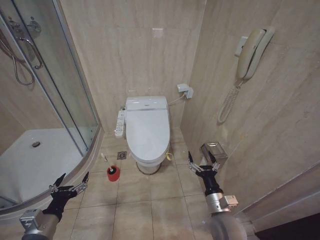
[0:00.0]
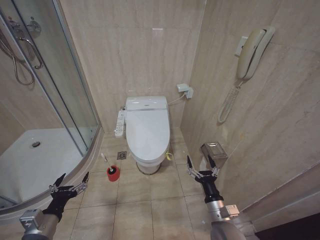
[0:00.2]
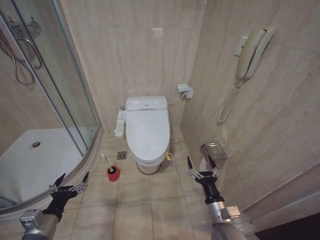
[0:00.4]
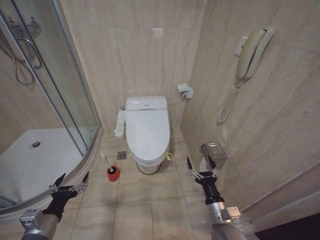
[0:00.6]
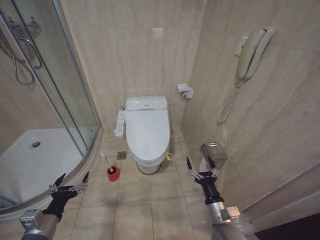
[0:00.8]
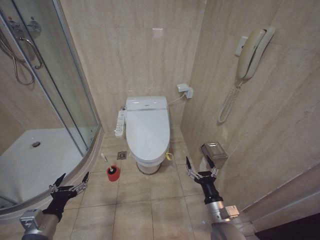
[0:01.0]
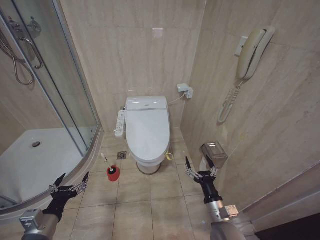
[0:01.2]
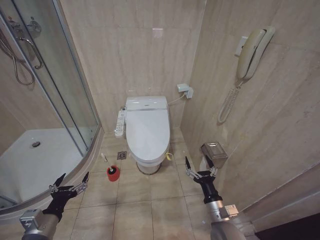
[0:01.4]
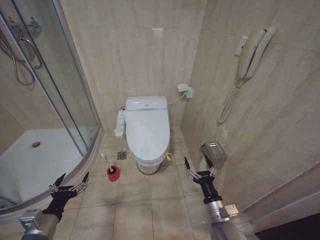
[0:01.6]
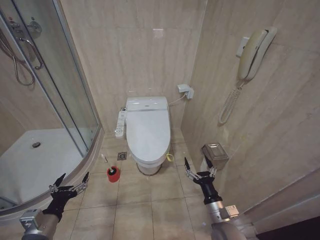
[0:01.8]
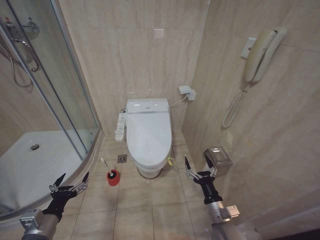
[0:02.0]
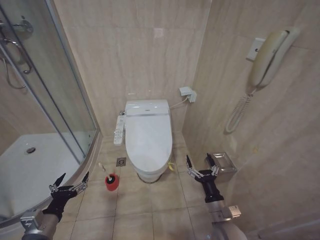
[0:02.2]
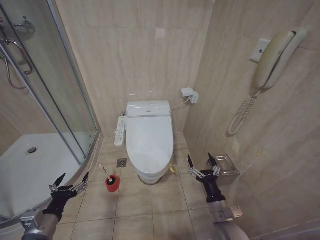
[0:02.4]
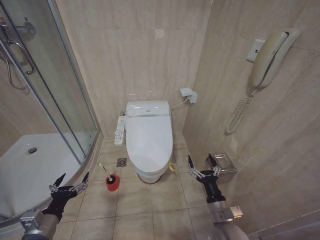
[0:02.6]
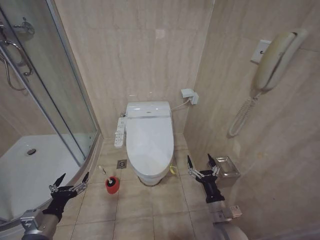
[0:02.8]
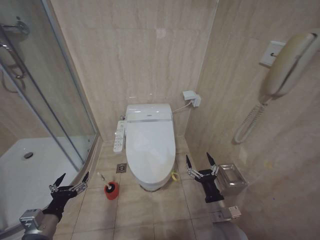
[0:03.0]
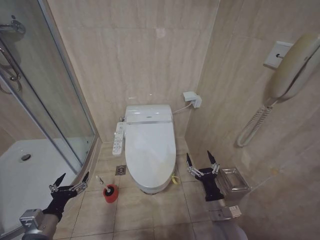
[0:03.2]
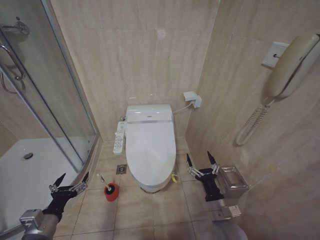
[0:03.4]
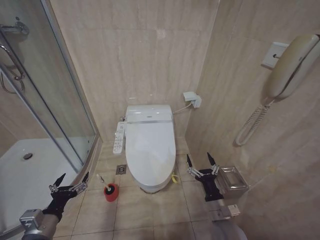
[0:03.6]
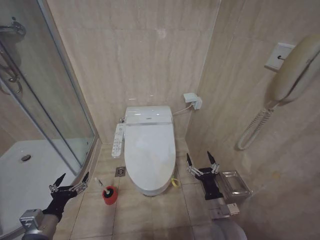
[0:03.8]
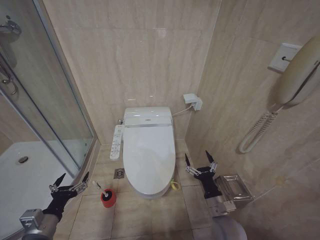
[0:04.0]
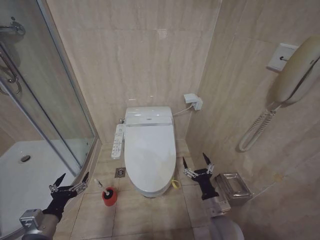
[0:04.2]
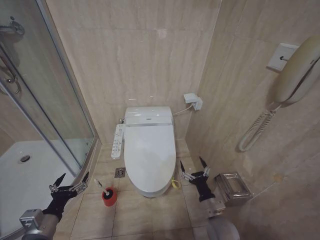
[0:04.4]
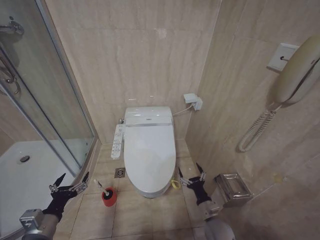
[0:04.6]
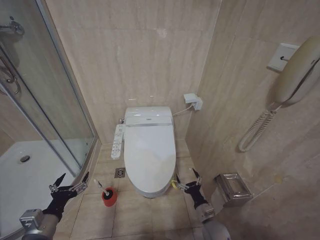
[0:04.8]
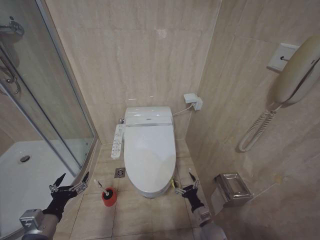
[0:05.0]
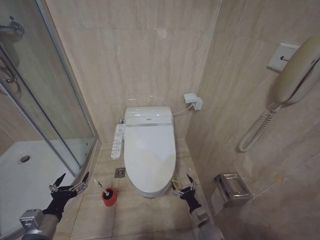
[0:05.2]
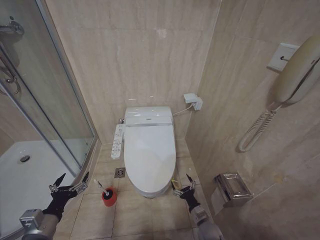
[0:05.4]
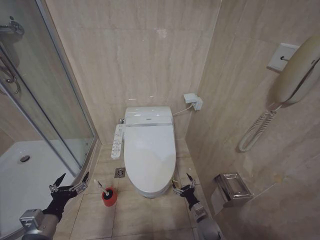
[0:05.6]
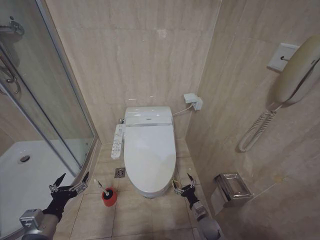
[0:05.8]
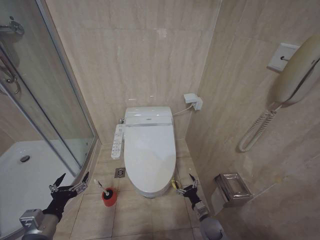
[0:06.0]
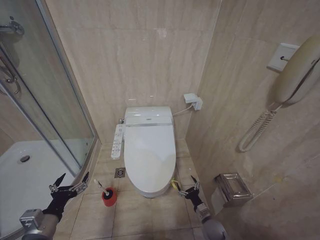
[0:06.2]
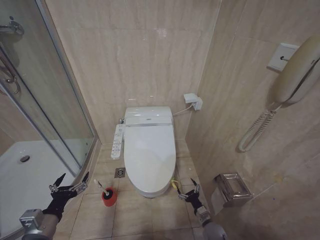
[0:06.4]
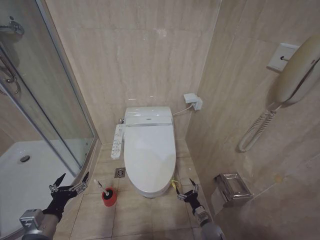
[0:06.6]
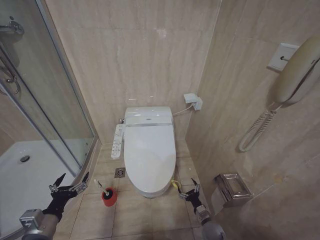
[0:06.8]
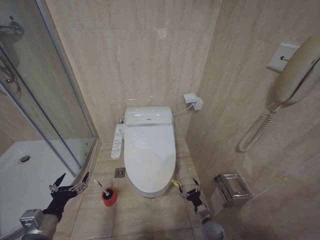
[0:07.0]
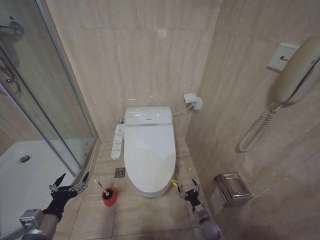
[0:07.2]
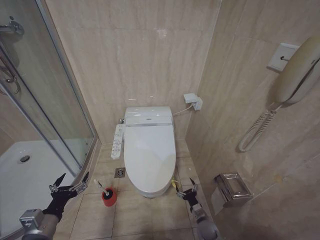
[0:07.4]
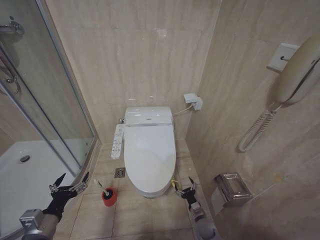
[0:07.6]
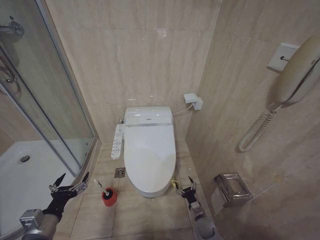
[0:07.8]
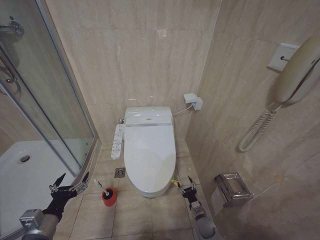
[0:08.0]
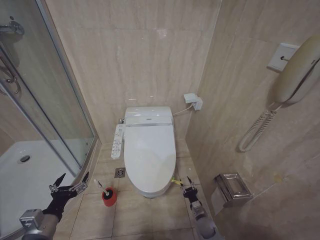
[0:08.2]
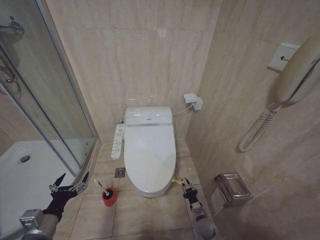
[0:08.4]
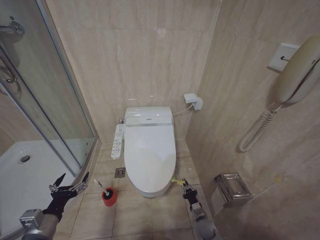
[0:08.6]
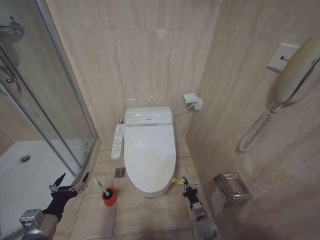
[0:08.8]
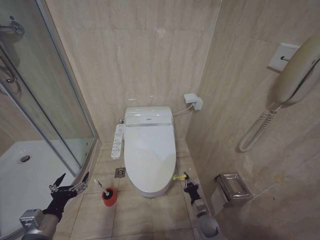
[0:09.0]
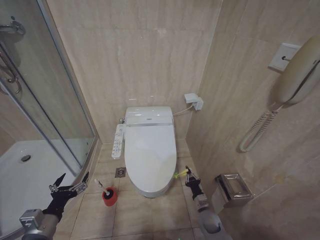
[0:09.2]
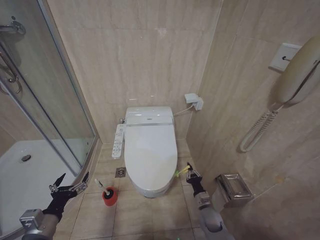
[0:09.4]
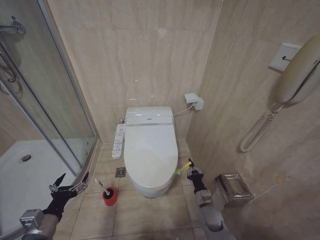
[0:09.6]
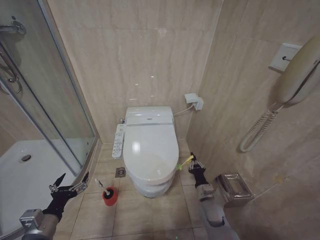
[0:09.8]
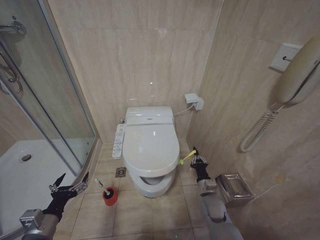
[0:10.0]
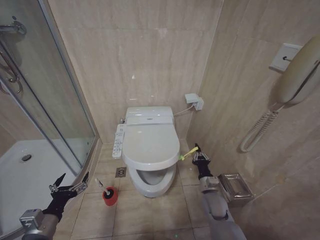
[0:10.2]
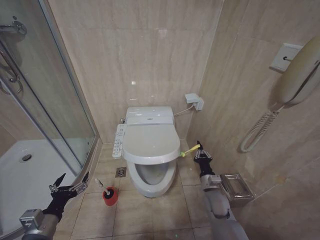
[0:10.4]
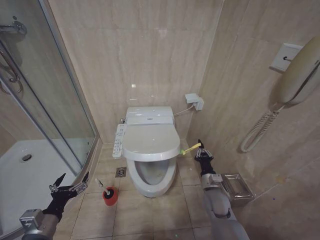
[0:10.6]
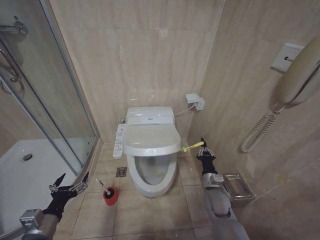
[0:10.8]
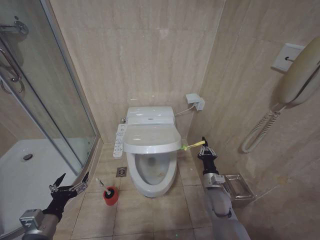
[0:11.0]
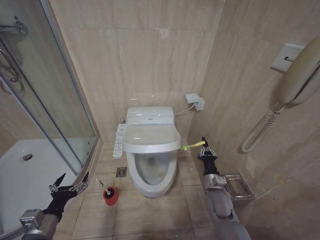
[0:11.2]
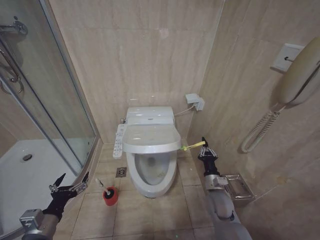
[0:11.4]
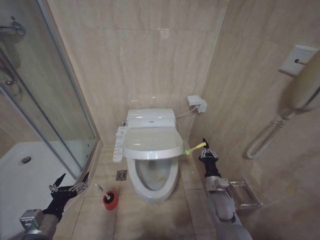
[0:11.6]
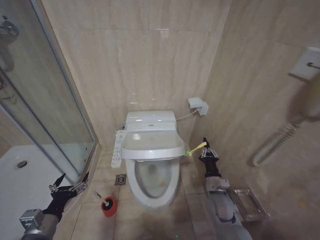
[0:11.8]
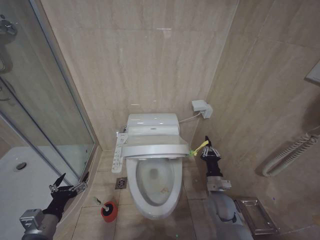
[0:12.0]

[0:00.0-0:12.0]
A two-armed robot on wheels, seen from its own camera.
Task of the whole recording: Open the toilet lid, clean the toilet bowl with a toilet brush, close the toilet lid, and flush.
0:01.6 to 0:03.0: Both grippers stay put.
0:03.0 to 0:04.4: The grippers stay close to where they were, moving slightly.
0:04.4 to 0:06.0: The right gripper is displaced downward by about 15 cm.
0:07.6 to 0:09.0: The right gripper closes up.
0:09.0 to 0:10.4: The right gripper shifts about 20 cm upward.
0:10.4 to 0:12.0: The grippers make only small movements.

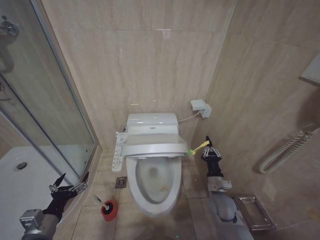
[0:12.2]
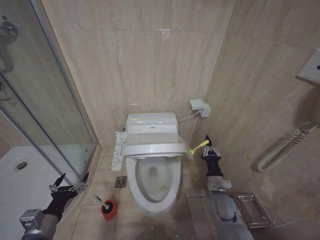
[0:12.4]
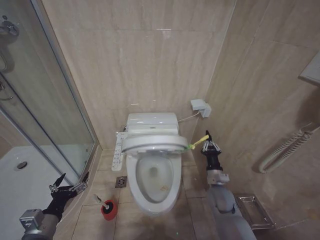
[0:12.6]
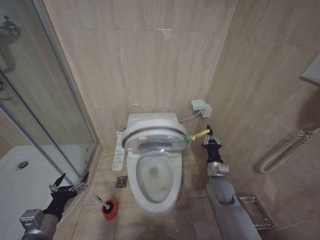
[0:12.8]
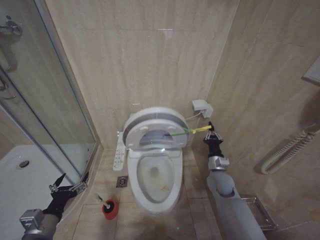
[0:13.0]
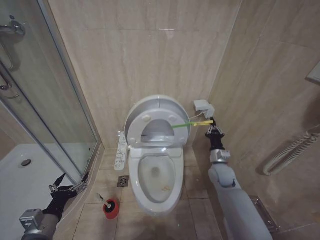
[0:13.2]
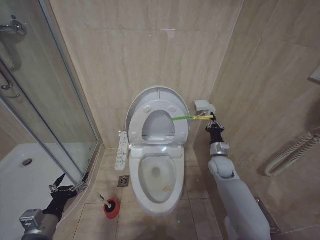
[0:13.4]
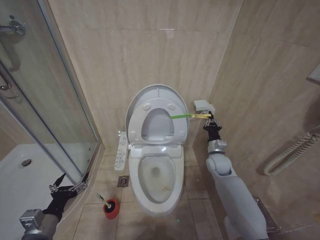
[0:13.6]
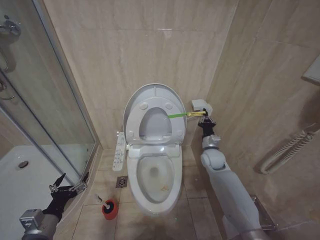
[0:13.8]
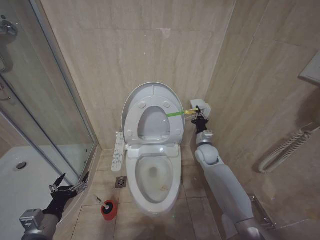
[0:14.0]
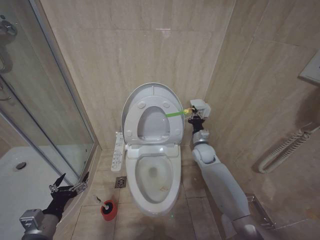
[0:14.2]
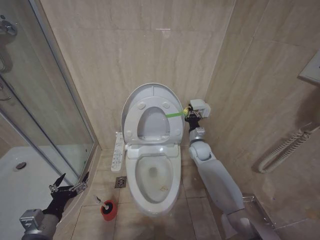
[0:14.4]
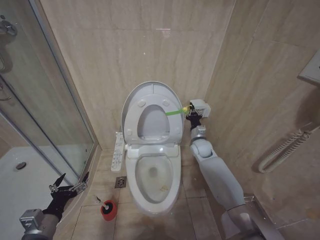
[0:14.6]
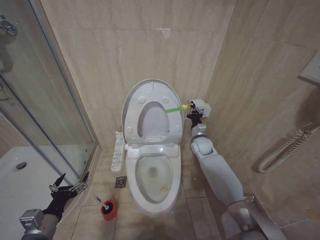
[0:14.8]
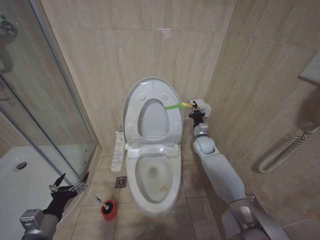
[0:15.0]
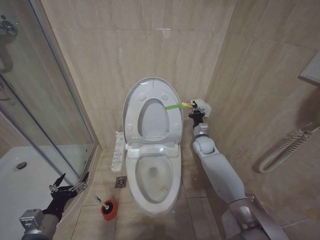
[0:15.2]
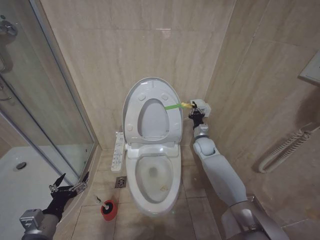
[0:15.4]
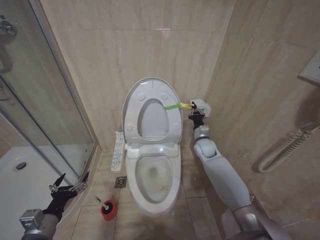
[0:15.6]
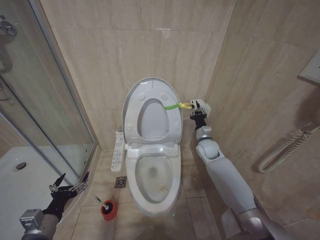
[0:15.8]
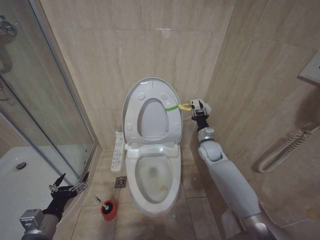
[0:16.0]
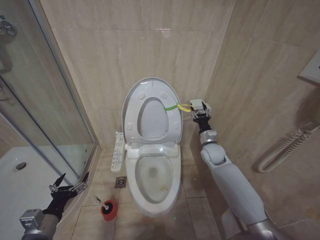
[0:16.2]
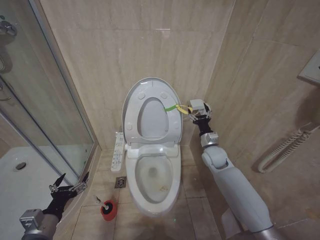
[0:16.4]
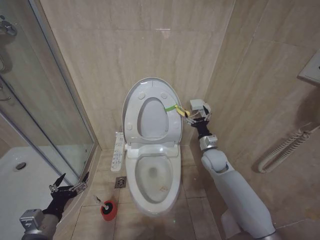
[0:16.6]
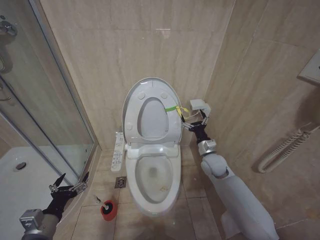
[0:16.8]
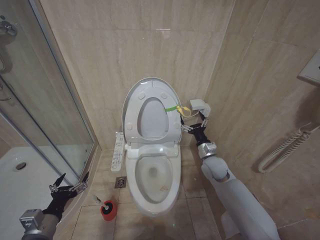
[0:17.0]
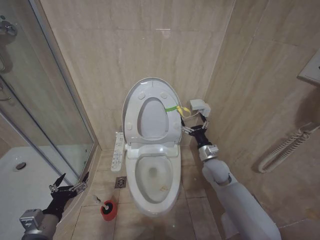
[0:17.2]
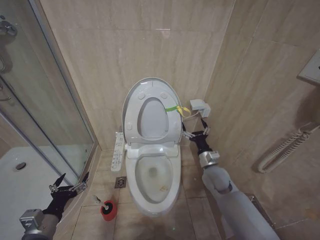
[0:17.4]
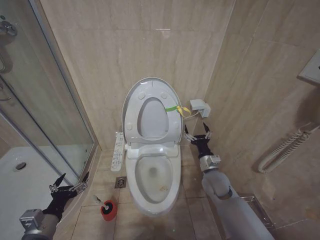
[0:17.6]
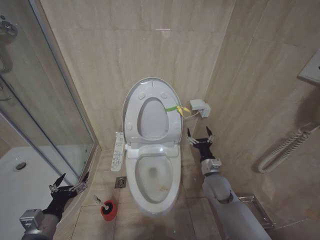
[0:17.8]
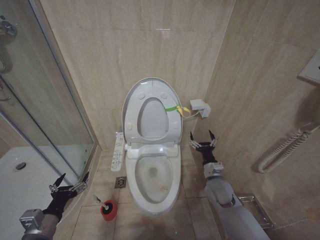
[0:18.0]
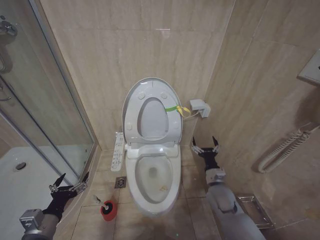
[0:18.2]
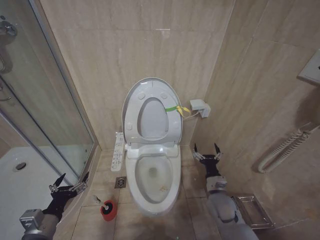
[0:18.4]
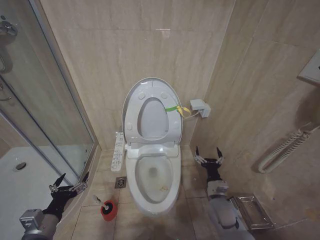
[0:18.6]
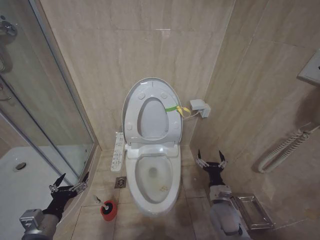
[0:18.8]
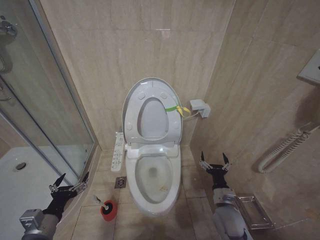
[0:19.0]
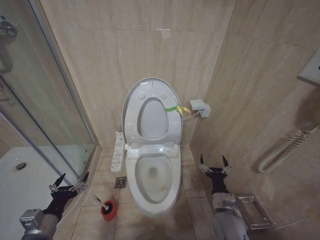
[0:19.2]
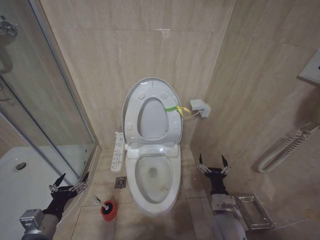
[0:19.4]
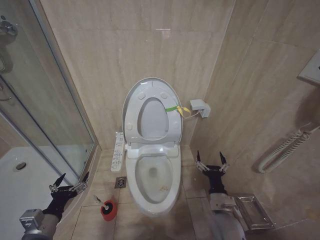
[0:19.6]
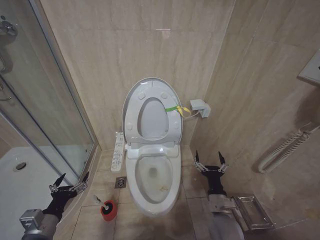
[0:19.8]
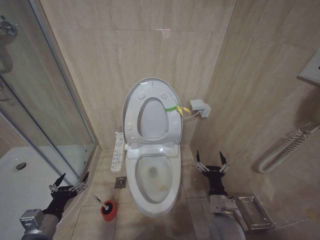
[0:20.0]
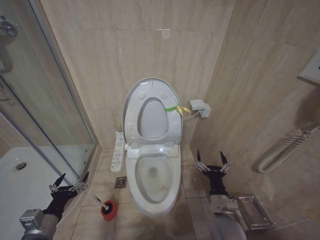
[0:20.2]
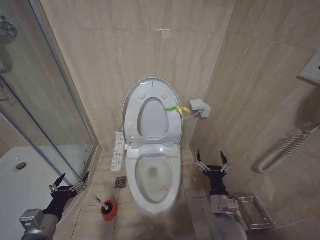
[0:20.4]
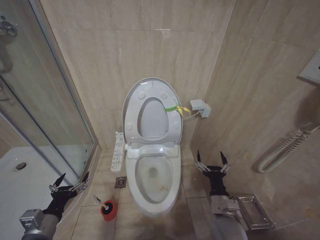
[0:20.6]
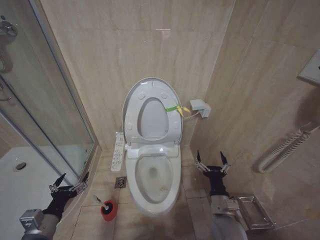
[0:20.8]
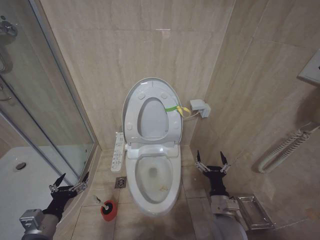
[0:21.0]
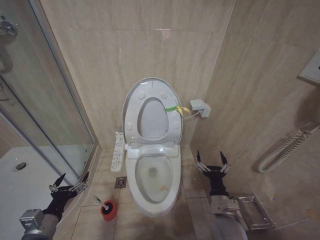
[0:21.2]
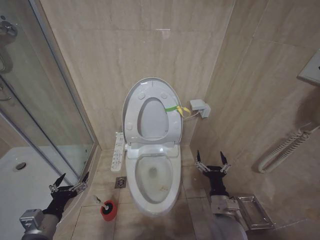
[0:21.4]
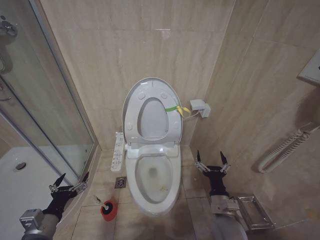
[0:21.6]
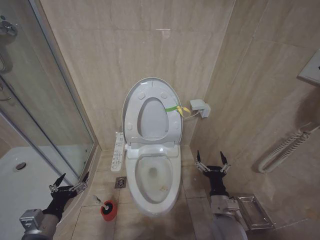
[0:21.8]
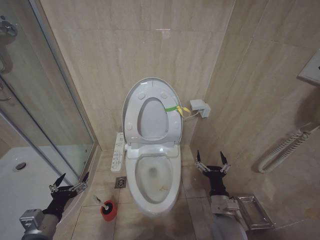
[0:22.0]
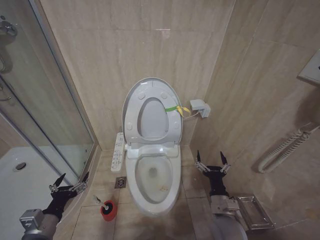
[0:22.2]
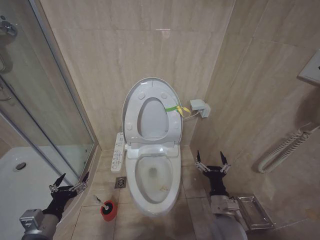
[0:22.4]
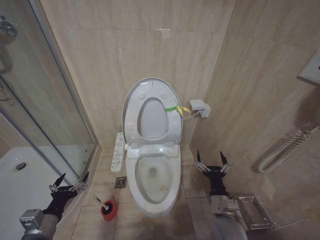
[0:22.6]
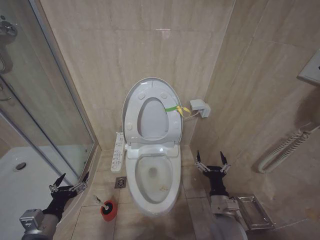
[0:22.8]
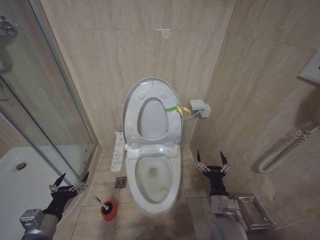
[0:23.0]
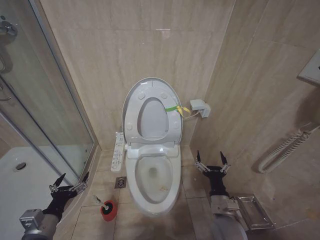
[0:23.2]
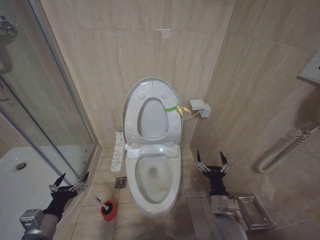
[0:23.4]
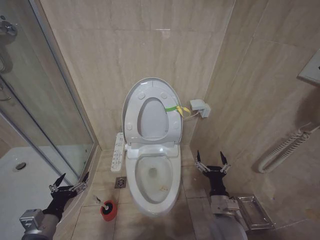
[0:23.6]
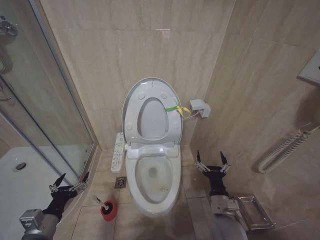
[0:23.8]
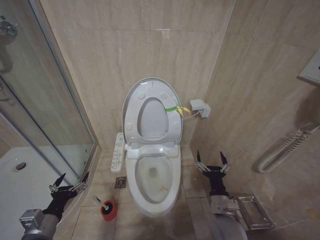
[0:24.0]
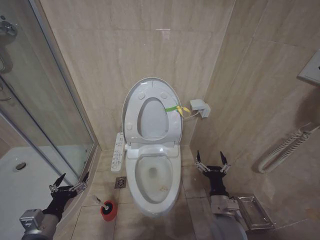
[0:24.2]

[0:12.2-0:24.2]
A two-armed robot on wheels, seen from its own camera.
Task of the whole recording: Open the toilet lid, clean the toilet bowl with a toilet brush, close the toilet lid, and flush.
0:12.2 to 0:13.8: The right gripper shifts about 15 cm forward and upward.
0:13.8 to 0:15.2: The right gripper heads forward, covering roughly 10 cm.
0:15.2 to 0:16.6: The right gripper moves backward, approximately 10 cm, and opens up.
0:16.6 to 0:18.2: The right gripper is displaced backward and downward by some 15 cm.
0:18.2 to 0:19.8: The right gripper moves backward, roughly 10 cm.
0:19.8 to 0:24.2: Neither gripper changes place.
